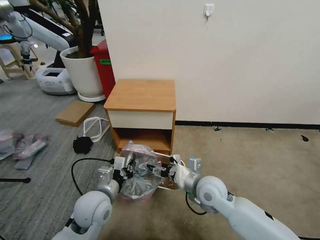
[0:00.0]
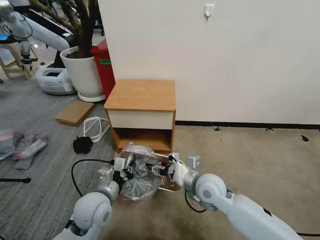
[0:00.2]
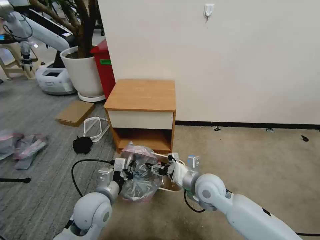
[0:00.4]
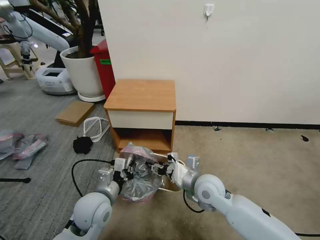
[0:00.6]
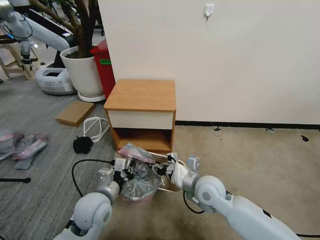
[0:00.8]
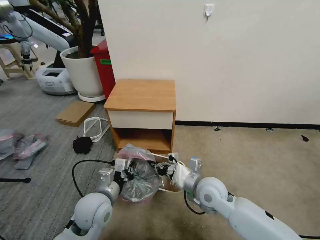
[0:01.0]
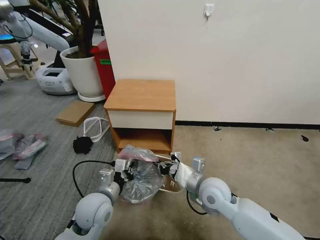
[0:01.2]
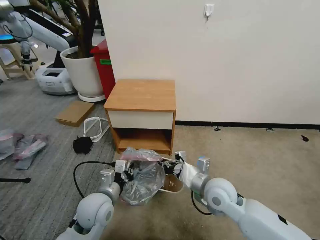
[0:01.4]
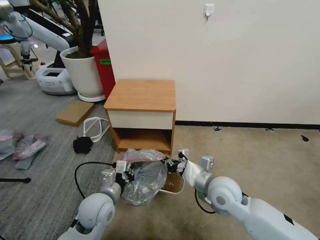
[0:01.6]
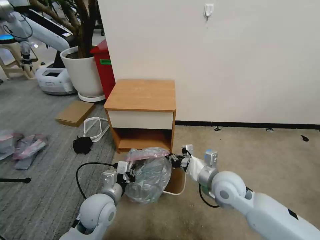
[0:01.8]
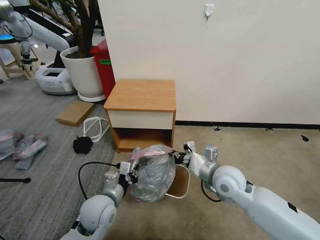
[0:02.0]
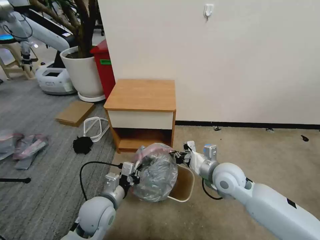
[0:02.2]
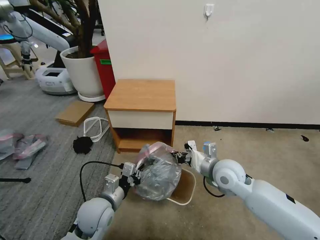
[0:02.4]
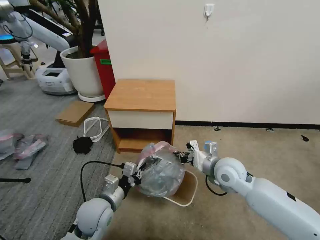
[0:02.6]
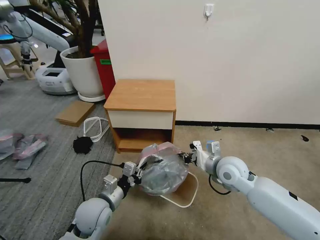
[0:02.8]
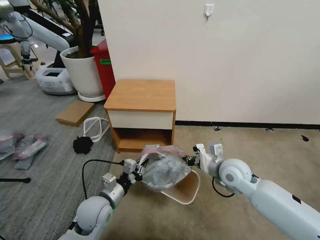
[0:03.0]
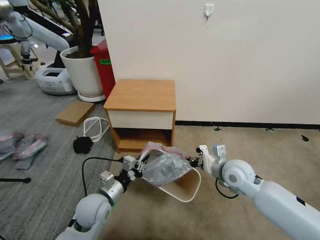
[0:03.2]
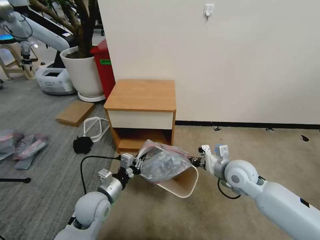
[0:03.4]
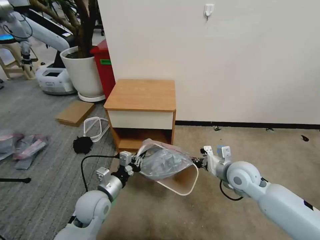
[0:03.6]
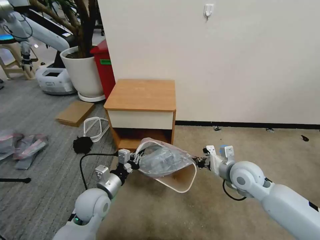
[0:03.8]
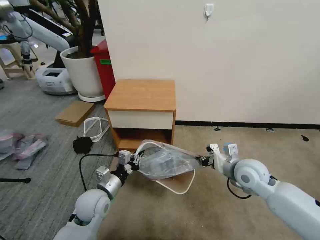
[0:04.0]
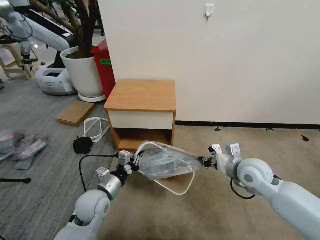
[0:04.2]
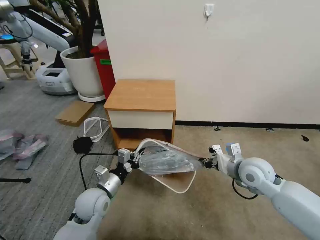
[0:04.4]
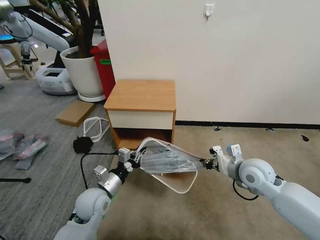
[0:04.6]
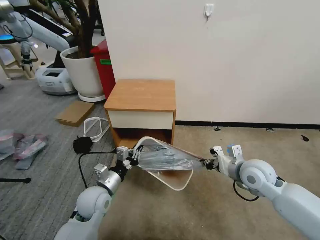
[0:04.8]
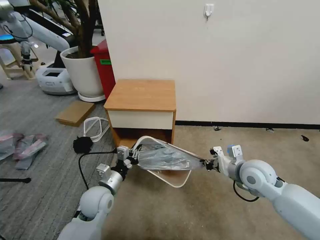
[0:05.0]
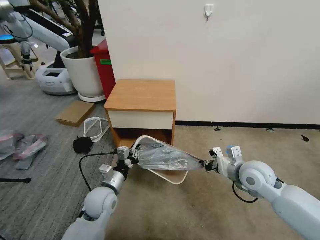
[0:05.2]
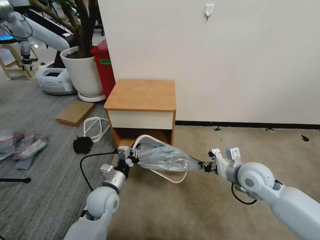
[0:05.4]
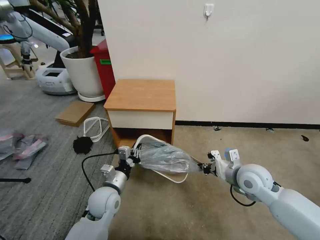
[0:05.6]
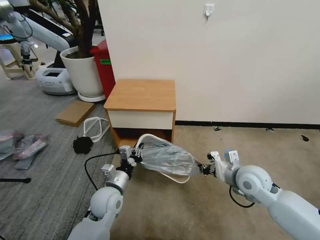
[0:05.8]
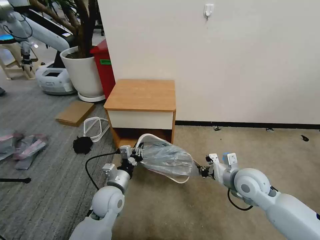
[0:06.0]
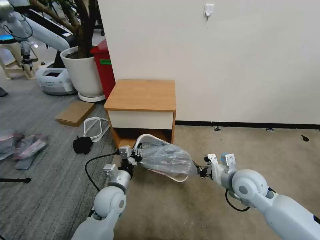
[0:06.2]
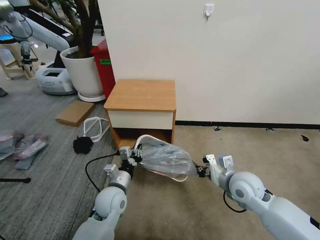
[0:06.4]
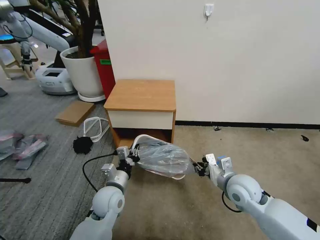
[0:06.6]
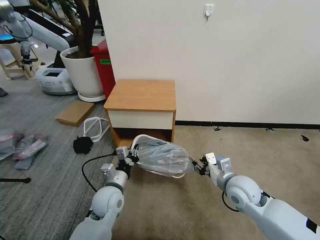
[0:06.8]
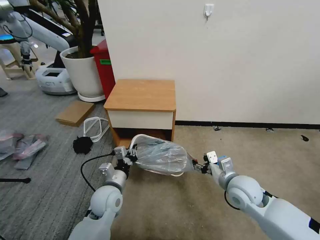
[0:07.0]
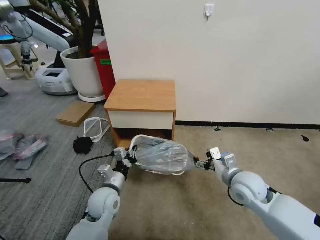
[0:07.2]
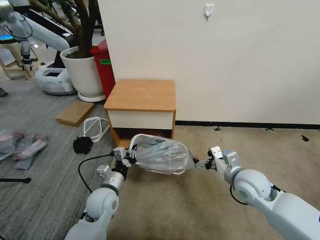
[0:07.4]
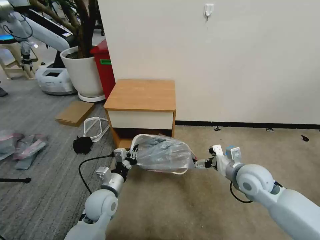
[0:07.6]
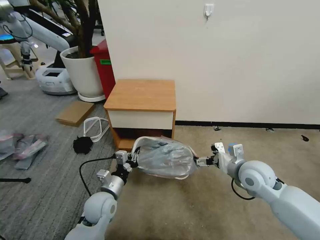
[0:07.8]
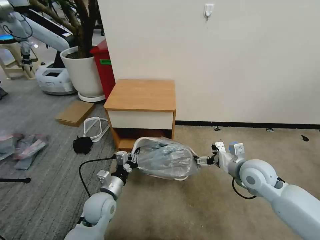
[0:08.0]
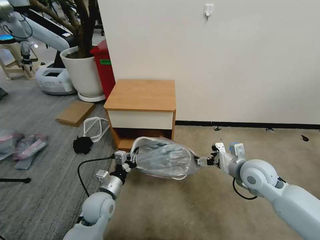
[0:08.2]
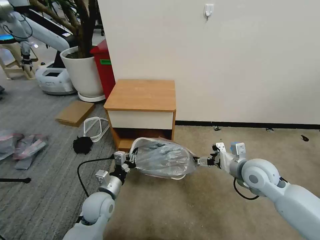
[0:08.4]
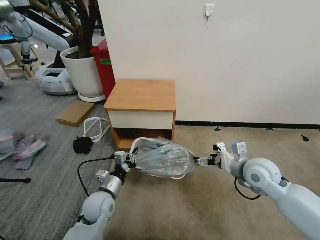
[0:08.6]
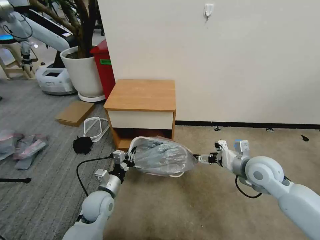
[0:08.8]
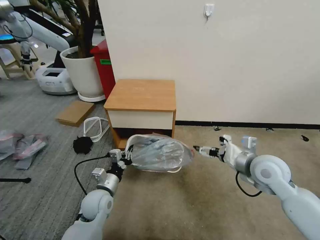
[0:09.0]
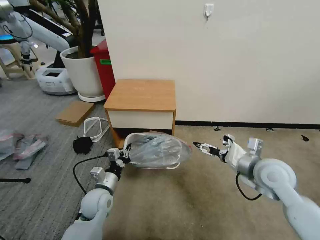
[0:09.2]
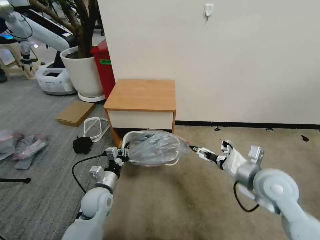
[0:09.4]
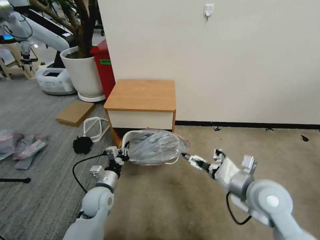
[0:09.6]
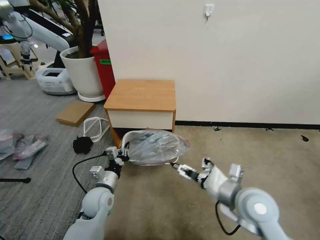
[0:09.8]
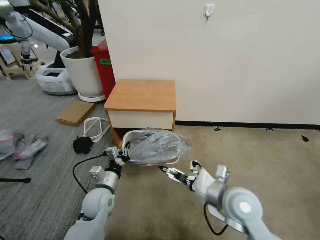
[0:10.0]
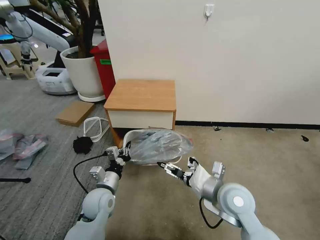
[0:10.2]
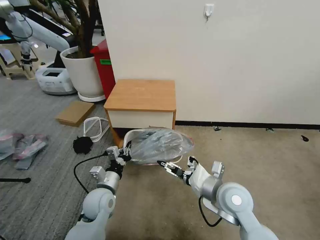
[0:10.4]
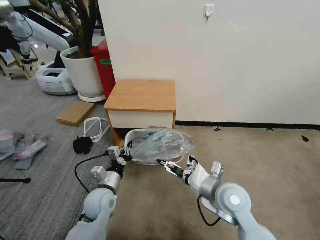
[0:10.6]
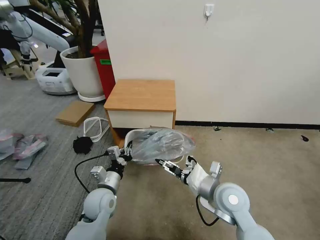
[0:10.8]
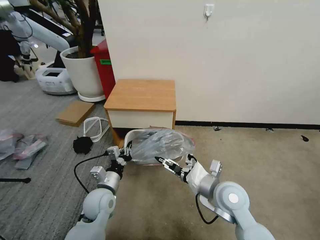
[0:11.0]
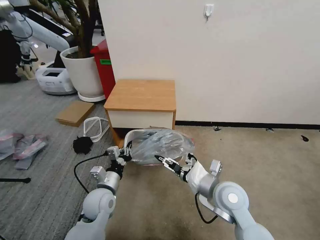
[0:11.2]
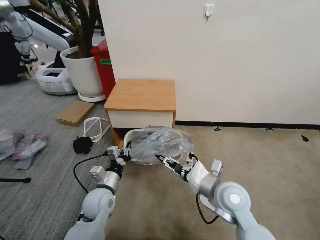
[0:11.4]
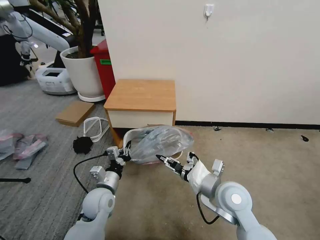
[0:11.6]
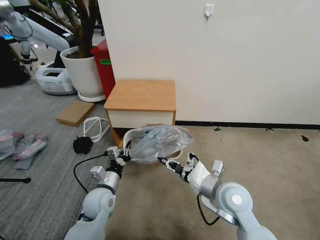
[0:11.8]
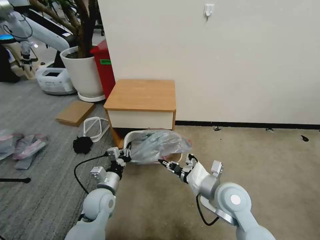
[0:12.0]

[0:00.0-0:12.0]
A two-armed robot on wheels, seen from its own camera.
Task of the whole recording: Pick up the garbage bag from the table and place it over the trash can.
0:00.0 to 0:01.6: The right gripper closes.
0:01.6 to 0:03.0: The right gripper goes approximately 10 cm forward and to the right.
0:03.0 to 0:04.4: The right gripper heads to the right, covering some 5 cm.
0:04.4 to 0:06.0: The grippers stay close to where they were, moving slightly.
0:06.0 to 0:07.6: The right gripper opens up.
0:07.6 to 0:09.0: The right gripper shifts by roughly 5 cm.
0:09.0 to 0:10.4: The right gripper moves to the left, backward and downward, some 15 cm.
0:10.4 to 0:12.0: The right gripper closes up.

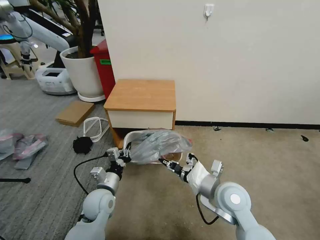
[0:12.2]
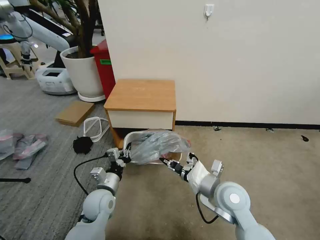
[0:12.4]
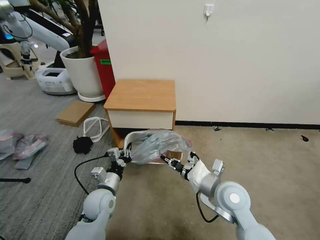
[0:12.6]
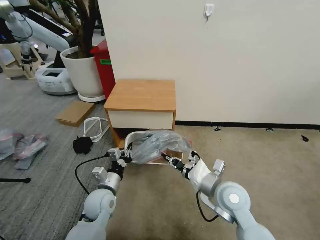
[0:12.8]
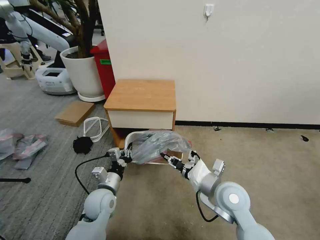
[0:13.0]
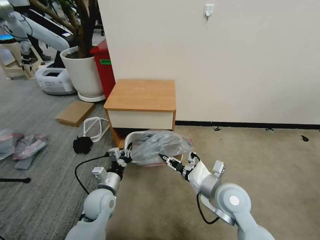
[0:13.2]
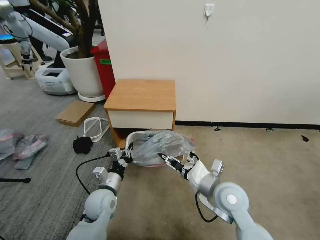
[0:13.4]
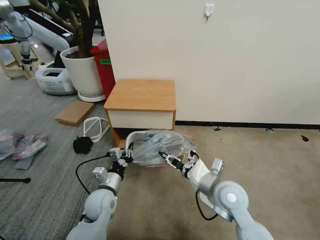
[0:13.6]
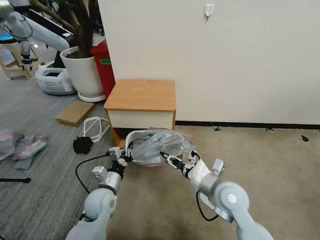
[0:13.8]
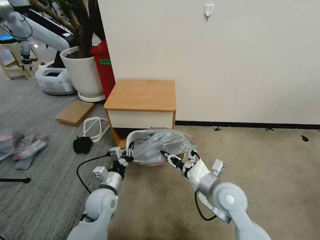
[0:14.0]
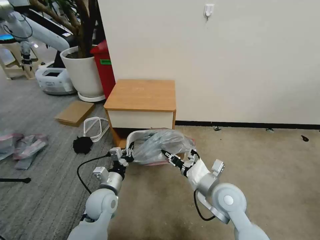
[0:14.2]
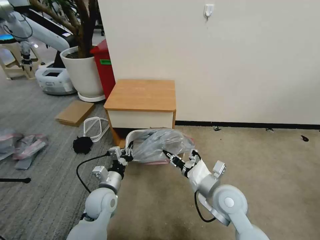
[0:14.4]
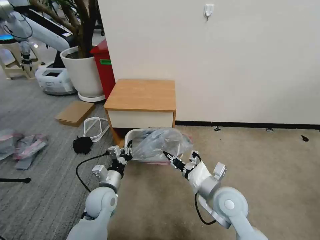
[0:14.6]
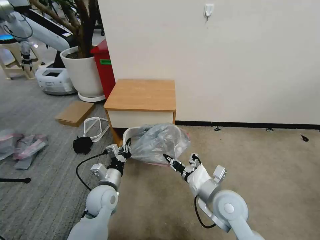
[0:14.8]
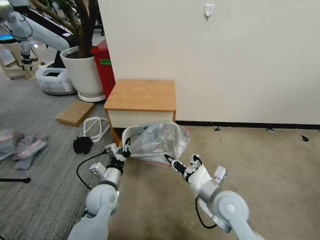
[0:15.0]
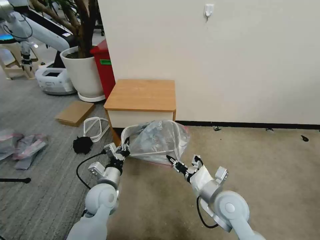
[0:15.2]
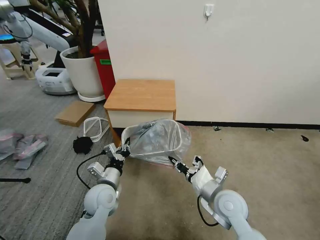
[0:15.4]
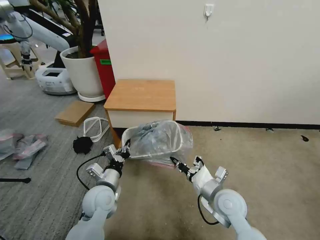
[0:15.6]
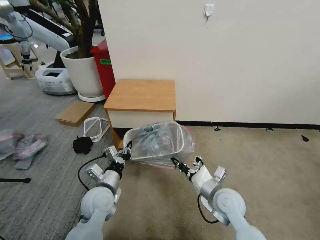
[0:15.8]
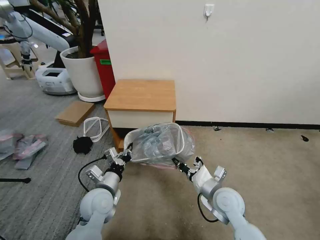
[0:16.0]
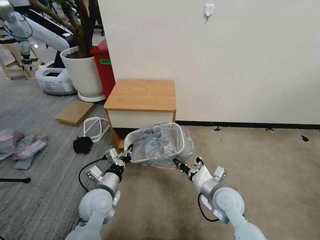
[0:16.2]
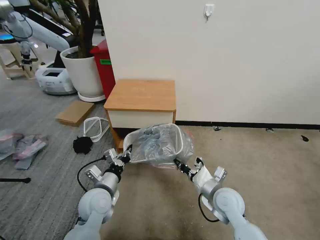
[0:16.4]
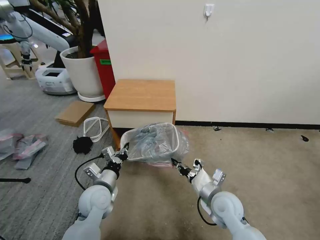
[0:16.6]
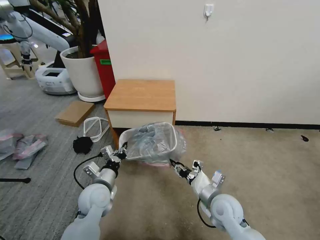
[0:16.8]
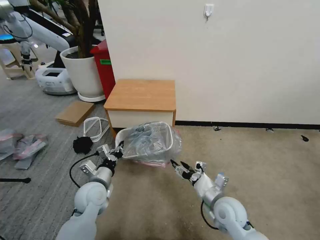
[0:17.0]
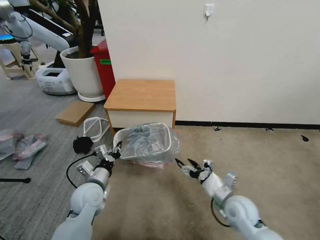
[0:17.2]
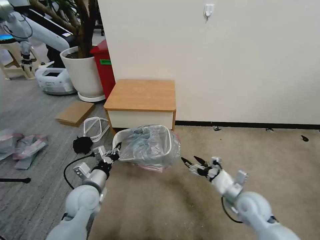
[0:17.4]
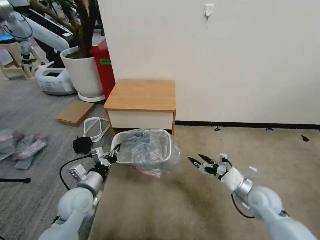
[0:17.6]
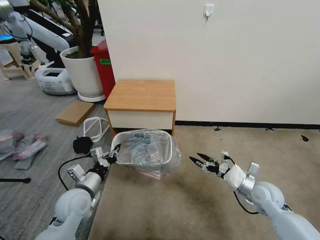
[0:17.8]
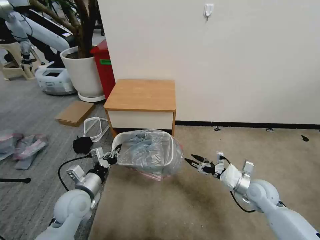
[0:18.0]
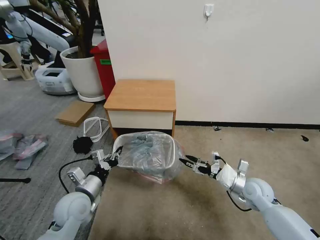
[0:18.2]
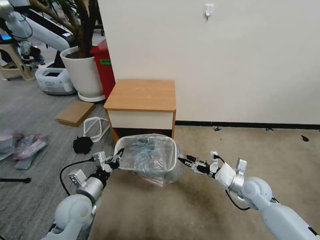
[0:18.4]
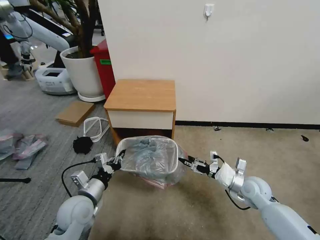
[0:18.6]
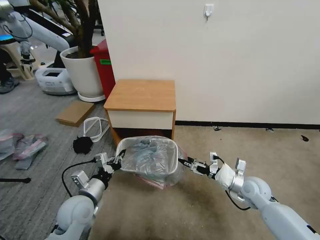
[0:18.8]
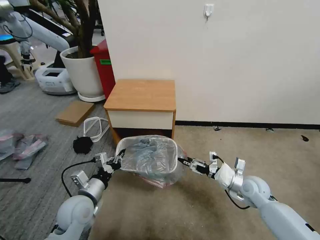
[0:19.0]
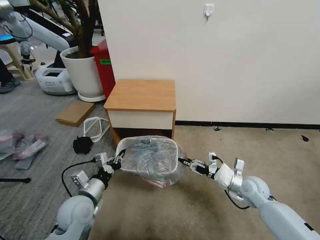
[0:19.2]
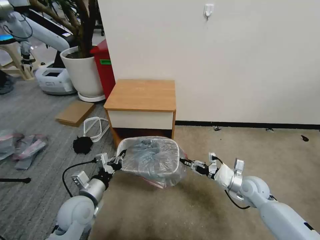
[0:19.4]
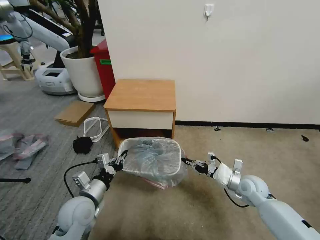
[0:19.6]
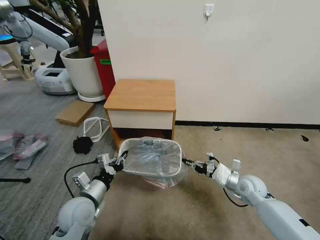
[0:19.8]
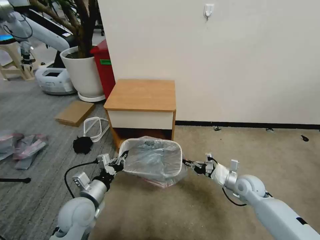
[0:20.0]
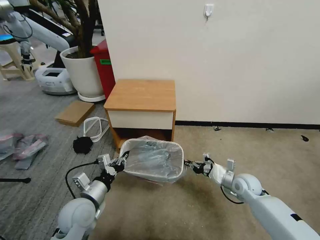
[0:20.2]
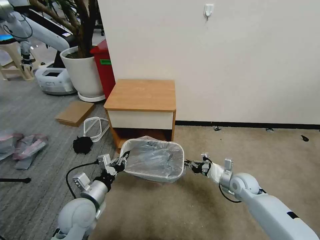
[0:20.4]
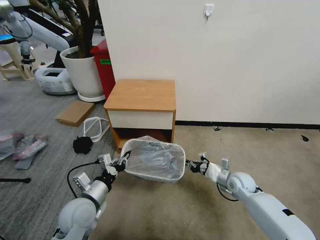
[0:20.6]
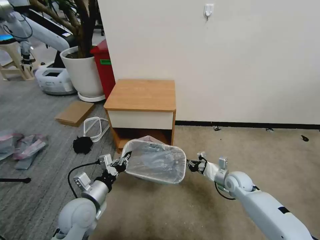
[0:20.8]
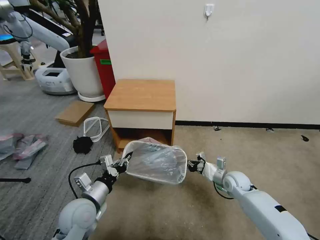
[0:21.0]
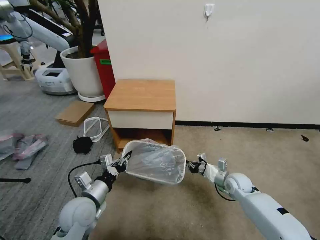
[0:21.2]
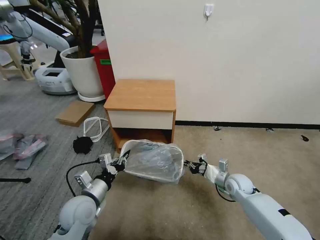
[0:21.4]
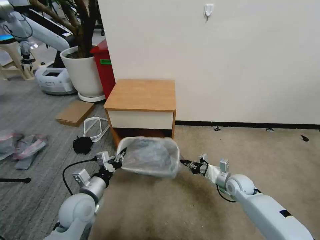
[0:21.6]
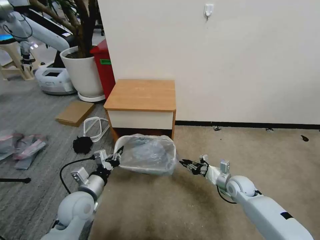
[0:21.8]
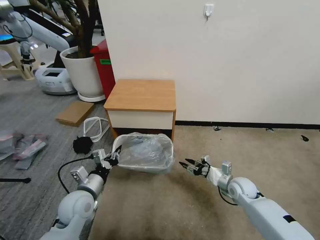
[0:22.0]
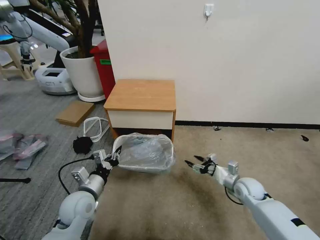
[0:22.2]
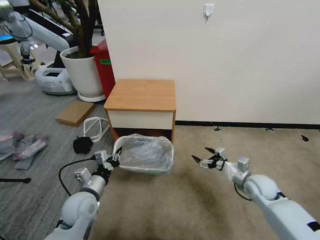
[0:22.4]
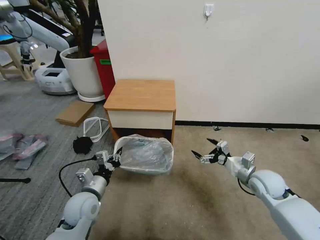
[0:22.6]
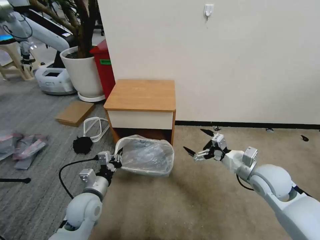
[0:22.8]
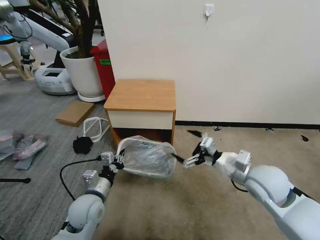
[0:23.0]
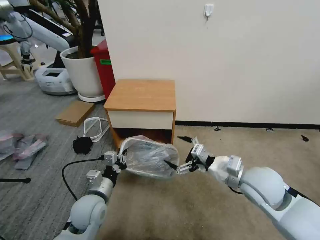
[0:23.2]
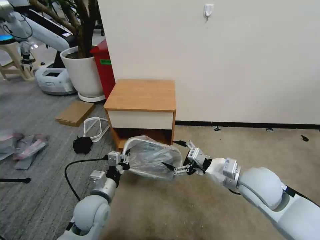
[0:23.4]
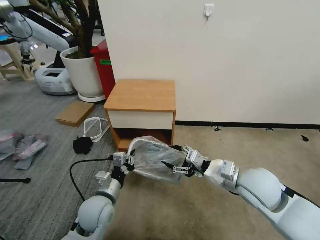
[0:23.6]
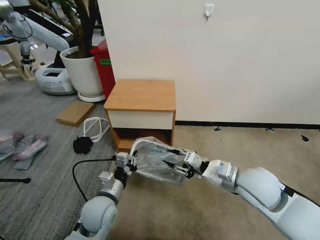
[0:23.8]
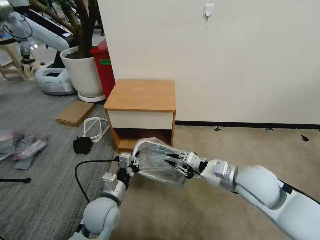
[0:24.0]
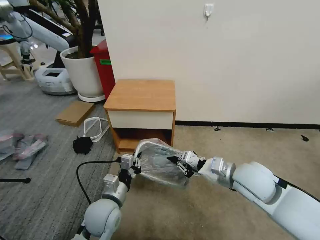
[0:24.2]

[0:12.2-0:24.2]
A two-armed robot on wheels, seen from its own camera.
Task of the whole recording: Pick up the garbage bag from the table and place it over the trash can.
0:12.2 to 0:13.8: The right gripper opens.
0:13.8 to 0:15.2: The right gripper closes its fingers.
0:15.2 to 0:16.6: The right gripper is displaced downward by approximately 5 cm.
0:16.6 to 0:18.2: The left gripper travels to the left by approximately 5 cm. Meanwhile the right gripper shifts approximately 15 cm to the right, and opens up.
0:18.2 to 0:19.8: The right gripper closes.
0:19.8 to 0:21.2: The right gripper shifts by roughly 5 cm.
0:21.2 to 0:22.6: The right gripper is displaced upward by about 10 cm, and opens its fingers.
0:22.6 to 0:24.2: The right gripper shifts roughly 15 cm upward and to the left, and closes its fingers. The left gripper travels to the right by approximately 10 cm.
